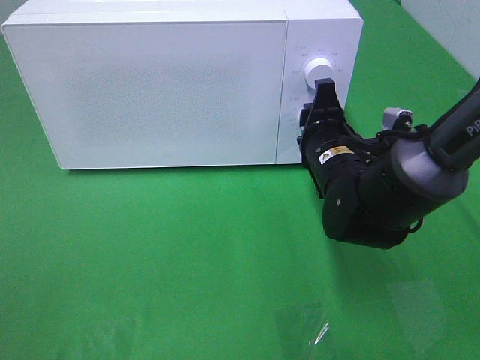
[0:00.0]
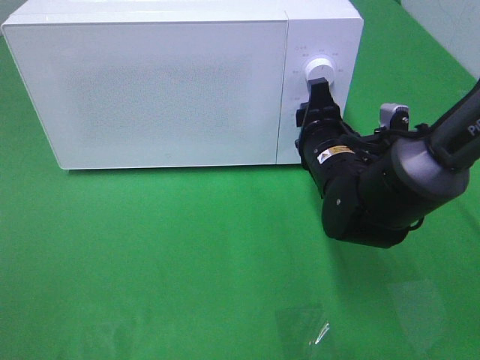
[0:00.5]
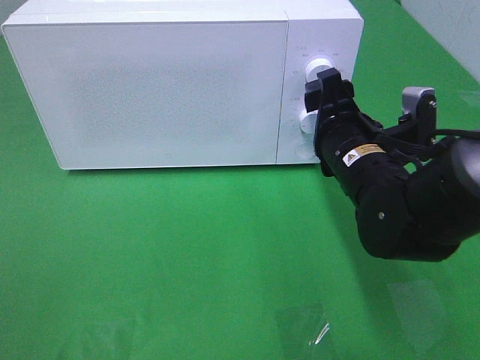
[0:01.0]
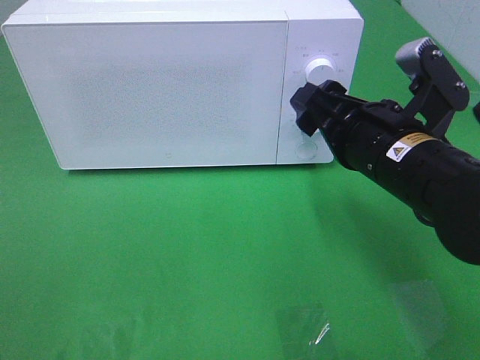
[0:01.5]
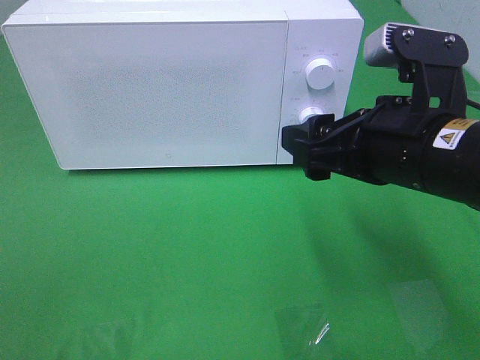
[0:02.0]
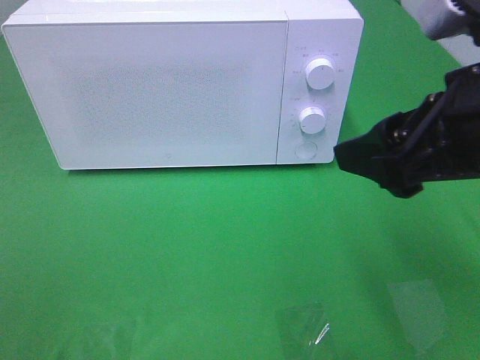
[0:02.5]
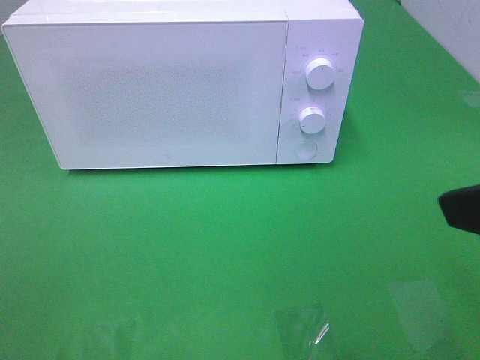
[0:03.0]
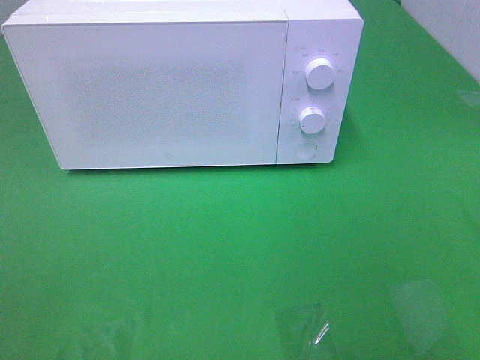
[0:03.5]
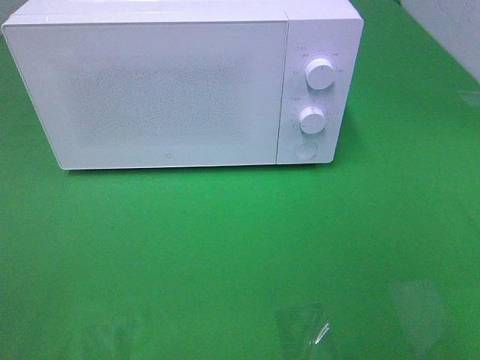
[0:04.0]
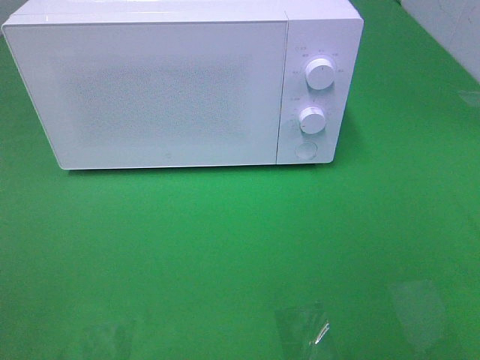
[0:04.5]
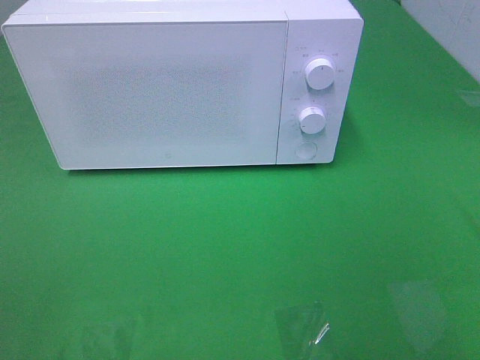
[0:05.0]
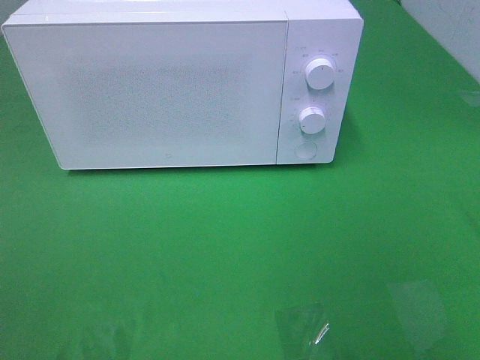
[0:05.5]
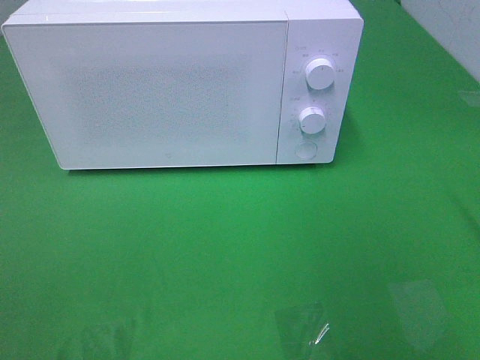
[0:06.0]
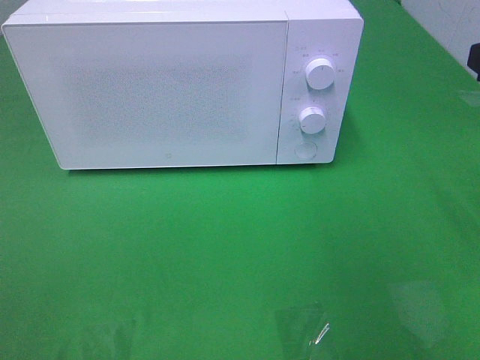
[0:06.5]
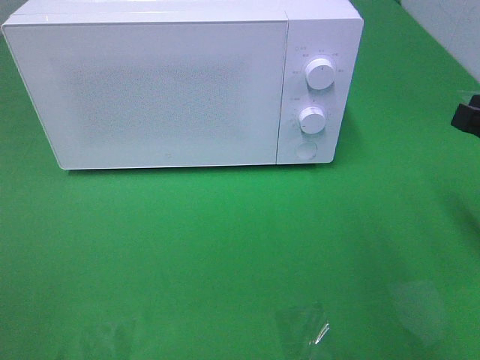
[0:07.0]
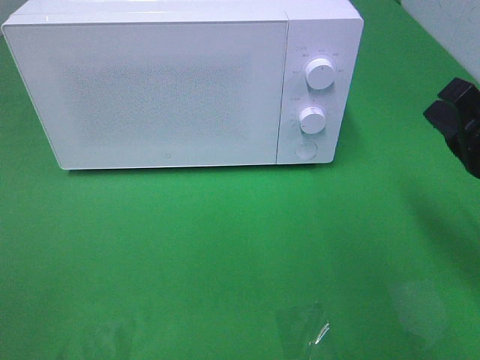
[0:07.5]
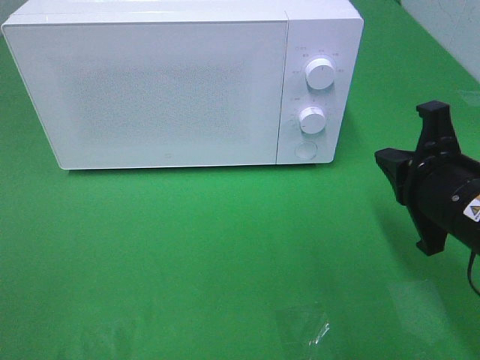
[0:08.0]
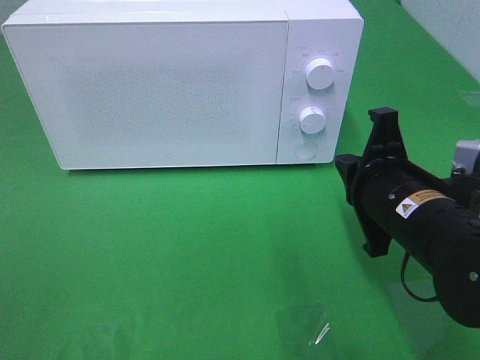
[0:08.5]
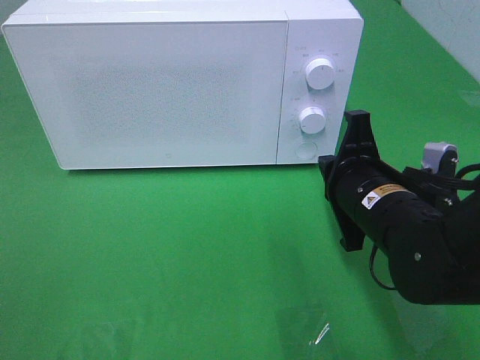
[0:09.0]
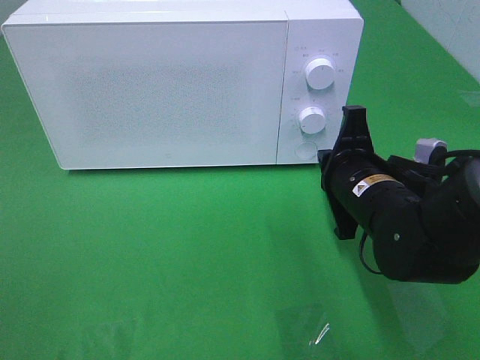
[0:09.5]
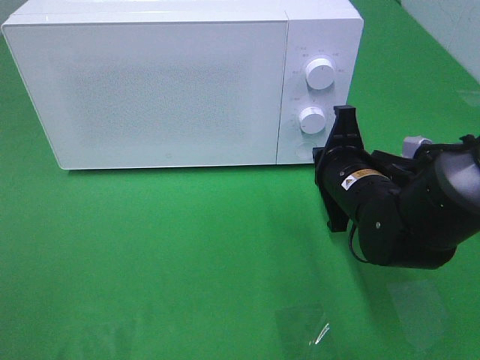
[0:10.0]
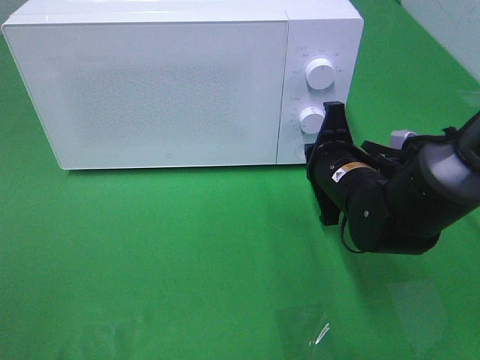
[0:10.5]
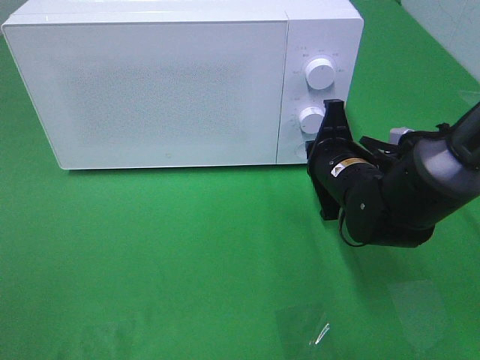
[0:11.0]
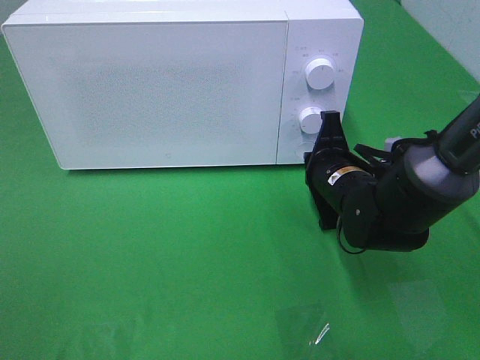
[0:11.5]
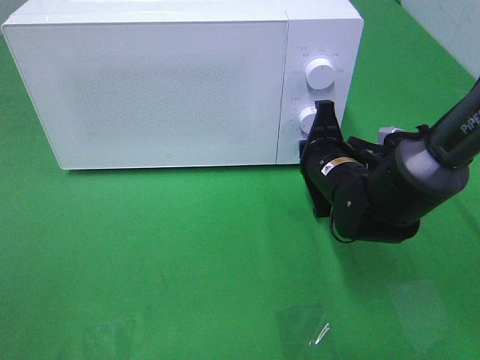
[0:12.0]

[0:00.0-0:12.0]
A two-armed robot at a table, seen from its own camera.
Task of the whole recording: Heat the burger.
0.0 to 2.0 s: The right gripper travels backward and upward by approximately 15 cm, and opens up.
2.0 to 4.0 s: The right gripper moves backward and to the right, approximately 25 cm.
6.0 to 8.0 s: The right gripper shifts approximately 20 cm downward and to the left, and closes its fingers.
8.0 to 10.0 s: The right gripper heads forward, to the left and downward, covering approximately 10 cm.
10.0 to 12.0 s: The grippers stay close to where they were, moving slightly.

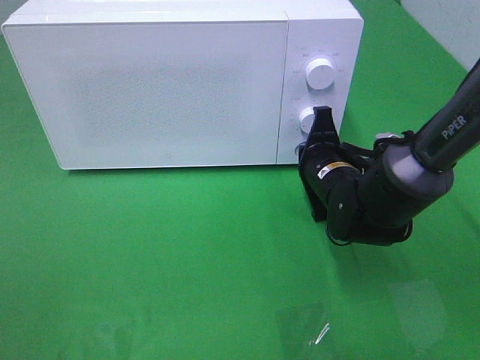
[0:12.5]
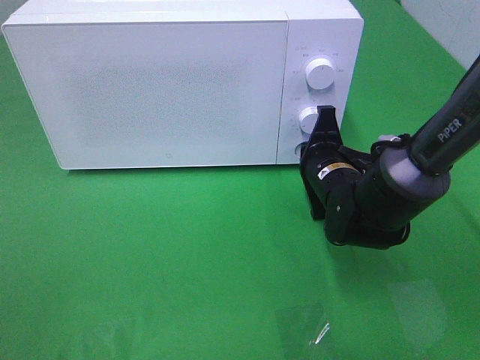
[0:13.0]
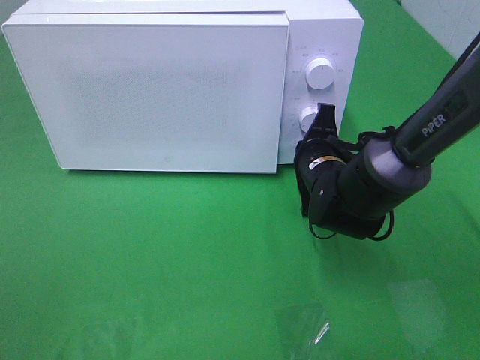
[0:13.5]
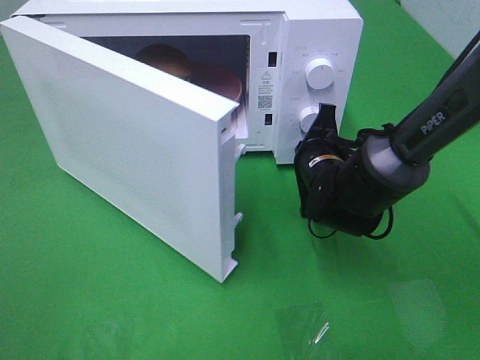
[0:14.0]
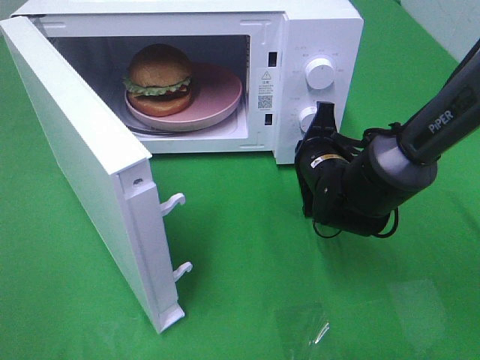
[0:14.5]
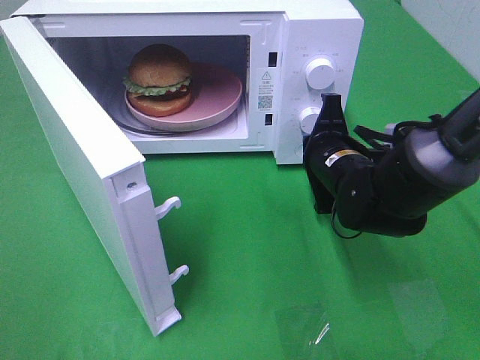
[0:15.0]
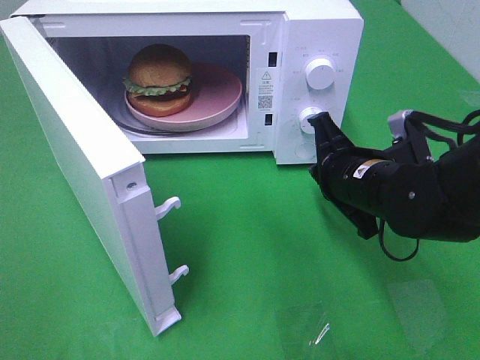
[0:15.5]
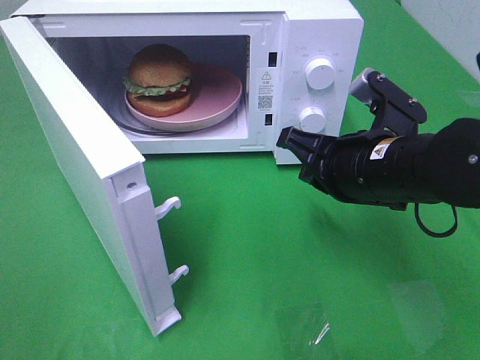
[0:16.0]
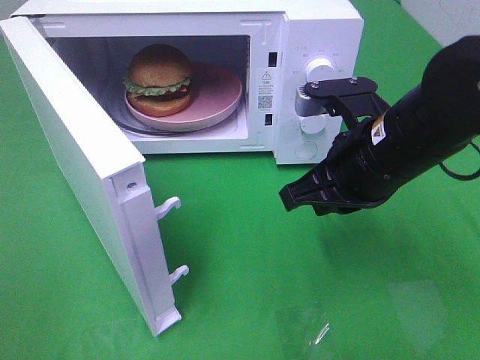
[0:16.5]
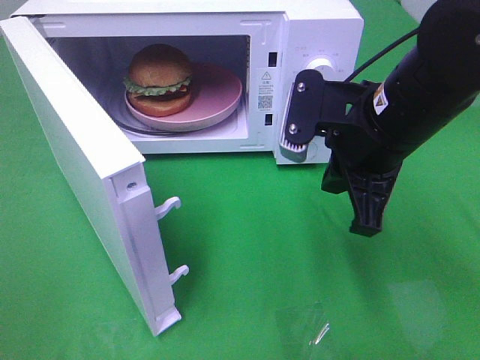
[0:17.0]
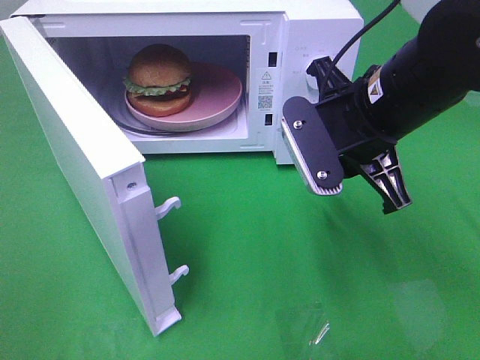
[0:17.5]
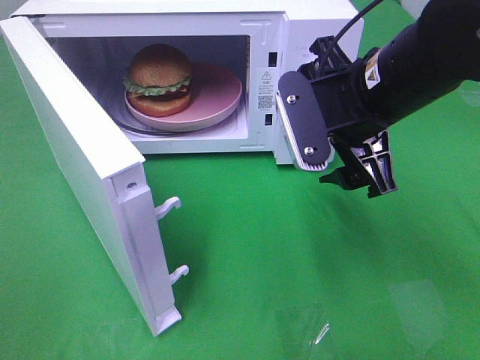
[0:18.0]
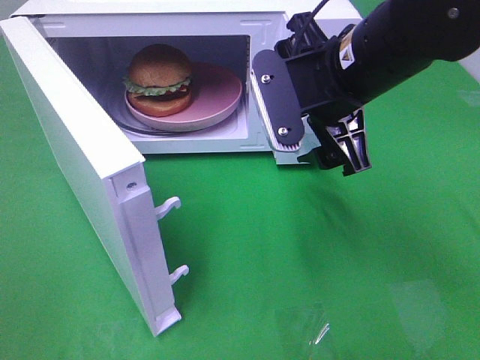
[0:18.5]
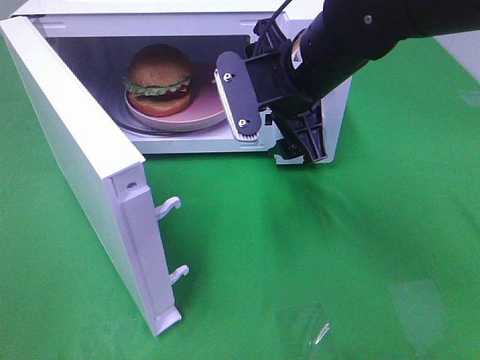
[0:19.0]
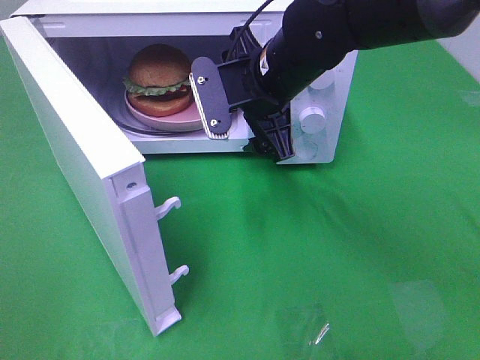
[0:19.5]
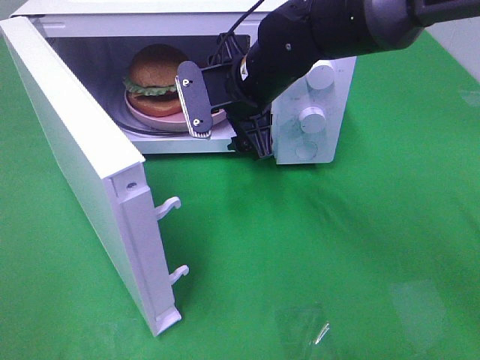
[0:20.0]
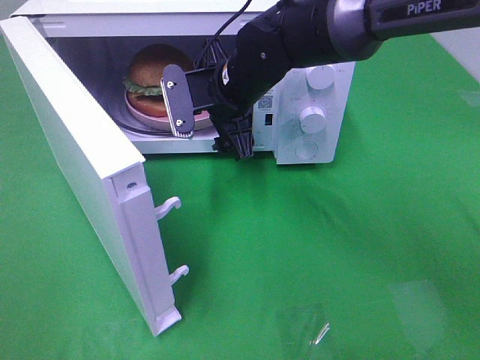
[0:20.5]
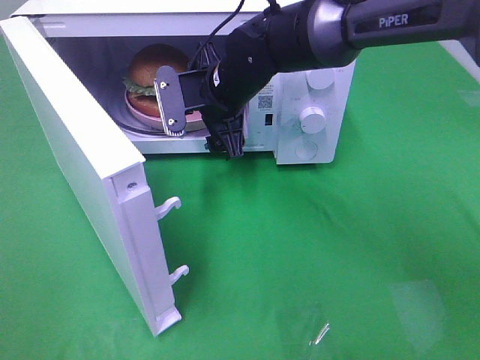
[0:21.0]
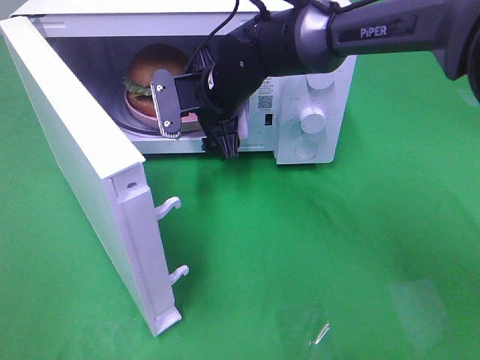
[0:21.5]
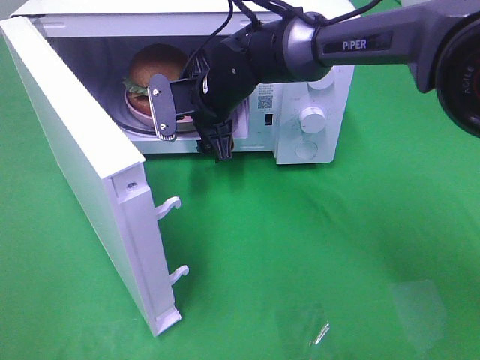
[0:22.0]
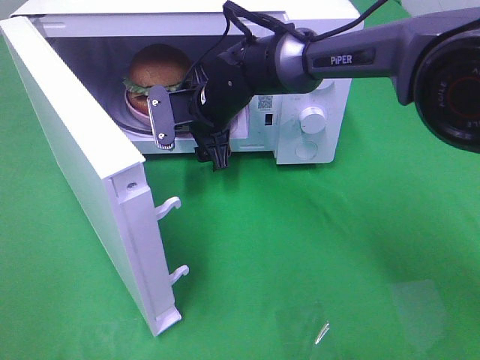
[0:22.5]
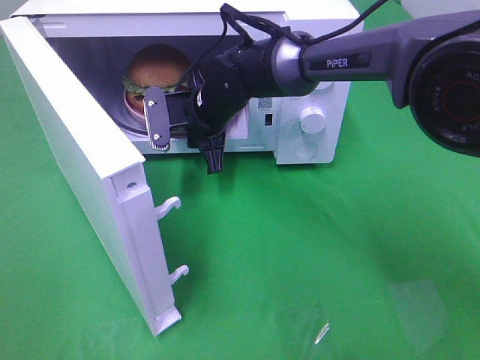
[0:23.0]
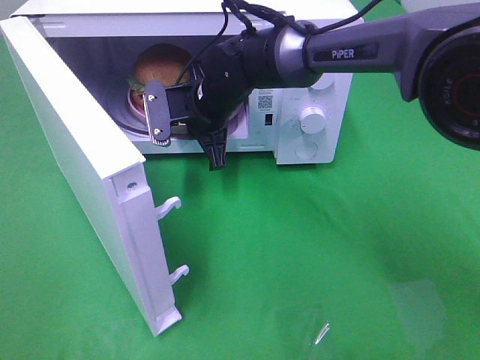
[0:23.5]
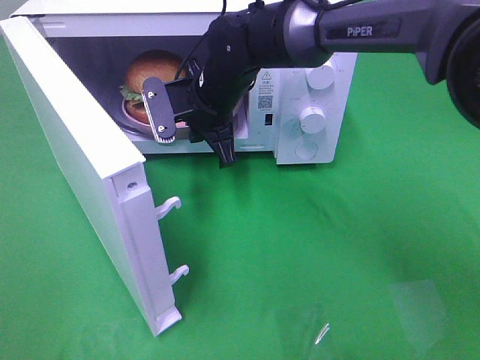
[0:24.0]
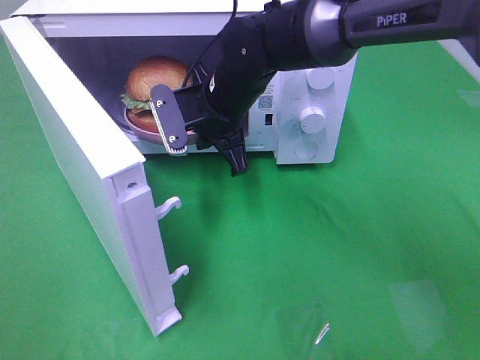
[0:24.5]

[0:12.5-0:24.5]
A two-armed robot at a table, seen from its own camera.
Task of the whole recording: Heat the burger.
Step, 12.5 to 15.0 s: Right hand: press the switch.
Step, 15.5 to 23.0 s: Right hand: grab the plate with the hamburger.
14.5 to 16.5 s: The right gripper is displaced upward and backward by about 15 cm.
16.5 to 18.5 s: The right gripper moves upward, about 5 cm, and opens.
18.5 to 20.5 s: The right gripper travels forward, to the left and downward by approximately 15 cm.
20.5 to 22.5 s: The right gripper shifts by some 5 cm.
22.5 to 24.5 s: The right gripper changes place by some 5 cm, and closes its fingers.

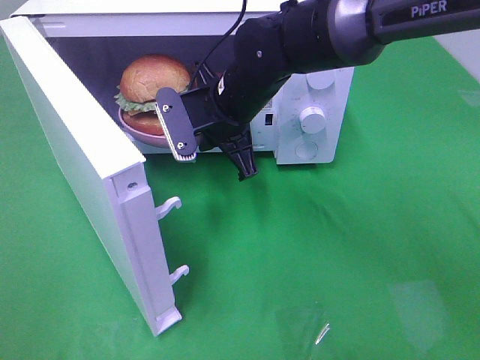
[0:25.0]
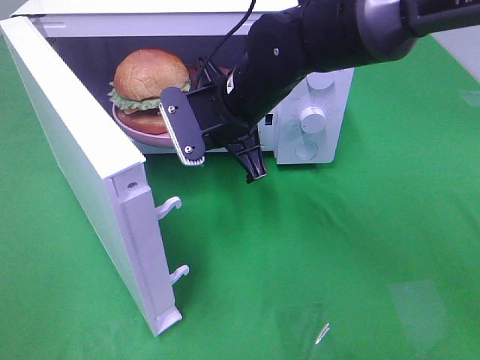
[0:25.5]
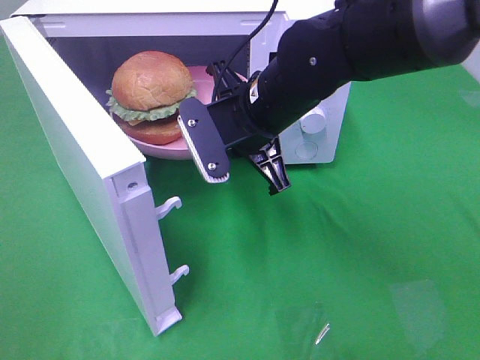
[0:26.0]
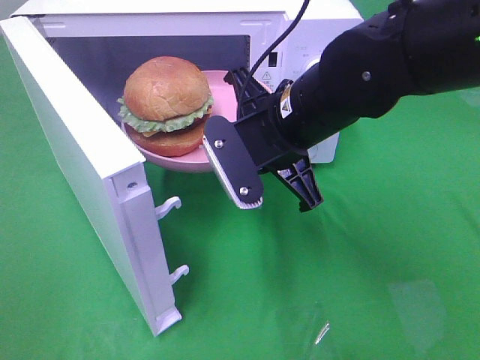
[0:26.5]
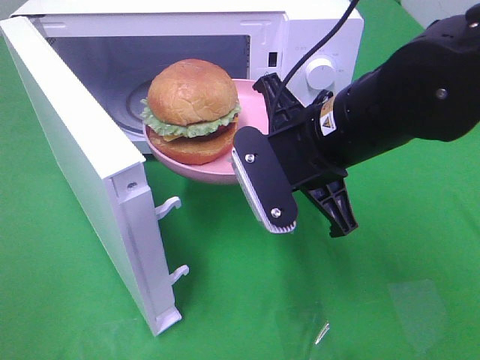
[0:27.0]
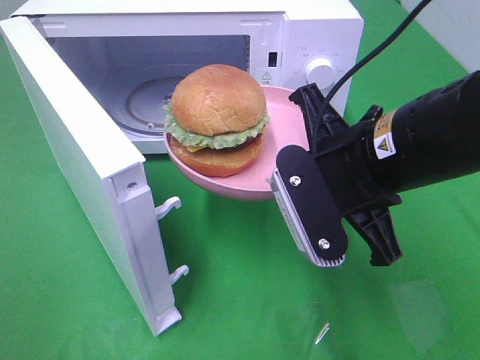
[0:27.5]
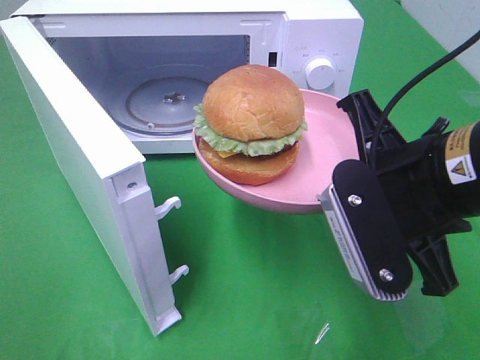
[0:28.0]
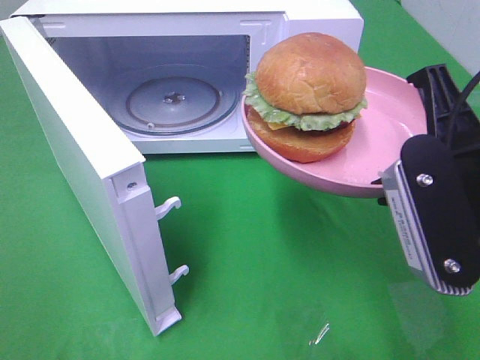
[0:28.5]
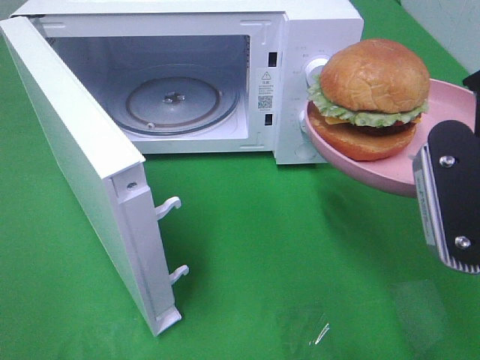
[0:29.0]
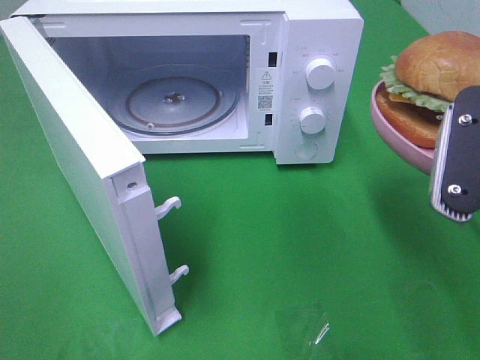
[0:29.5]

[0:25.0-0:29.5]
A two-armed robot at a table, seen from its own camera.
Task of the whole recording: Heat the burger.
25.0 to 27.0 s: The right gripper heads backward and to the right, covering some 15 cm.
27.0 to 29.5 s: The right gripper is displaced to the right and backward by roughly 15 cm.
